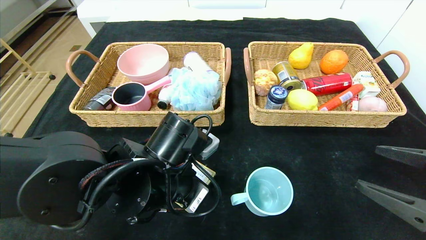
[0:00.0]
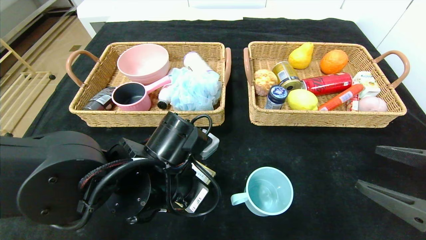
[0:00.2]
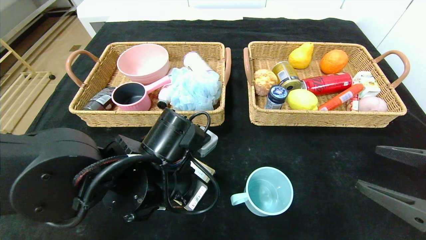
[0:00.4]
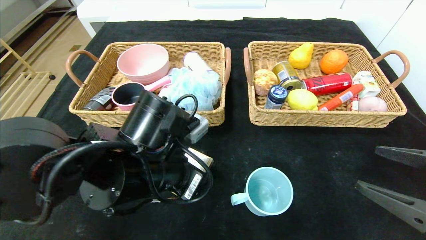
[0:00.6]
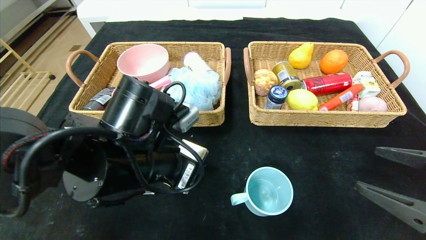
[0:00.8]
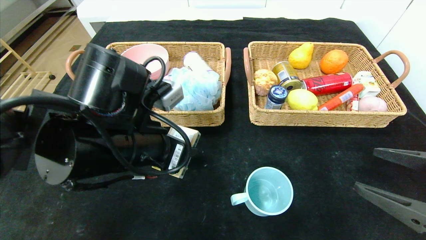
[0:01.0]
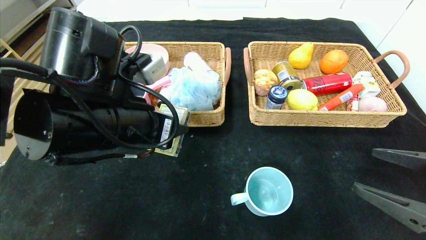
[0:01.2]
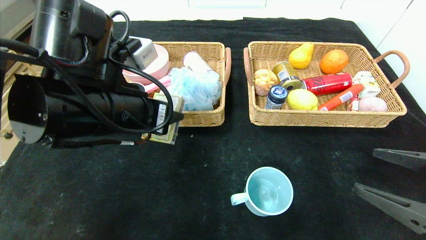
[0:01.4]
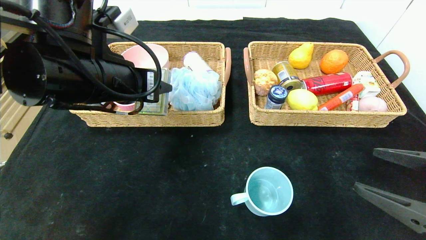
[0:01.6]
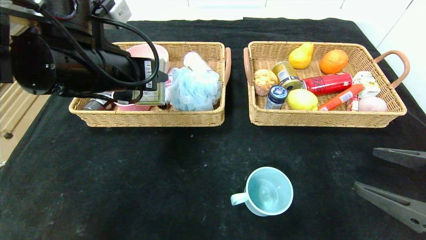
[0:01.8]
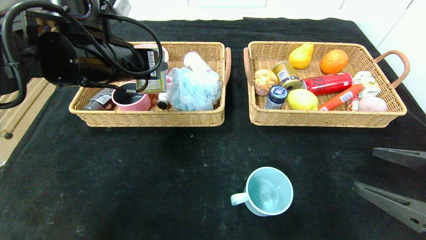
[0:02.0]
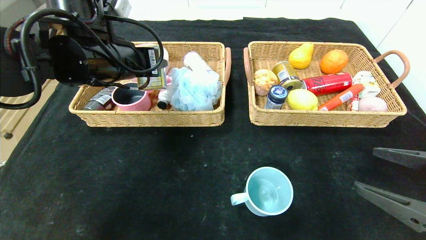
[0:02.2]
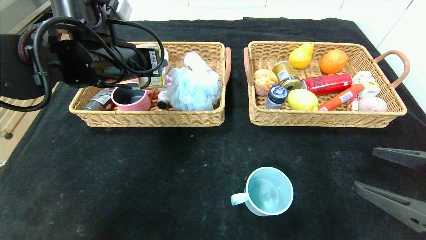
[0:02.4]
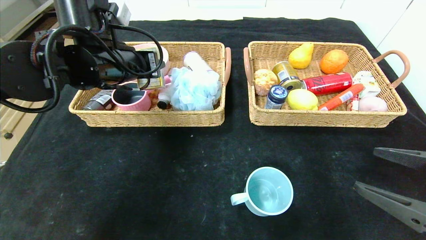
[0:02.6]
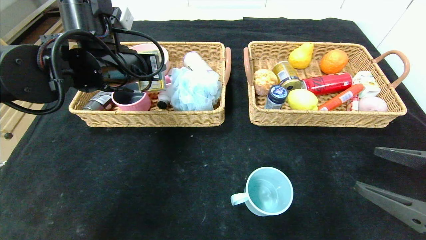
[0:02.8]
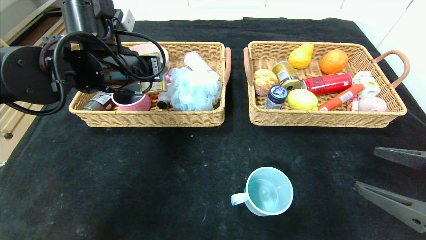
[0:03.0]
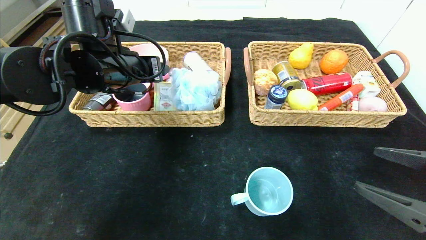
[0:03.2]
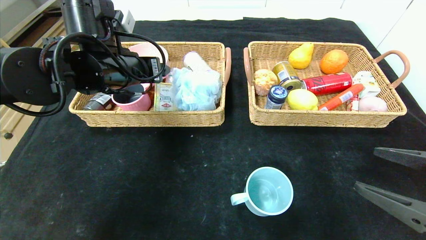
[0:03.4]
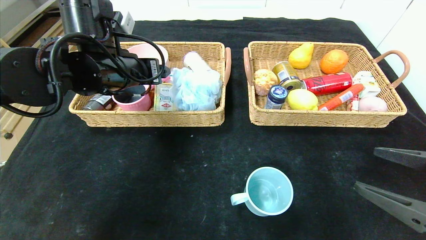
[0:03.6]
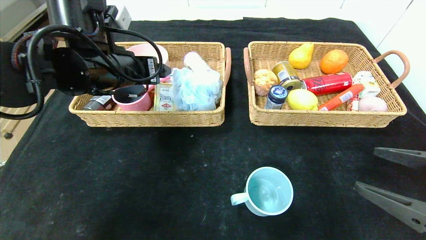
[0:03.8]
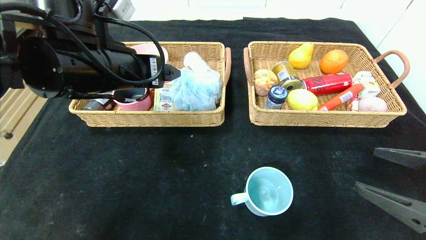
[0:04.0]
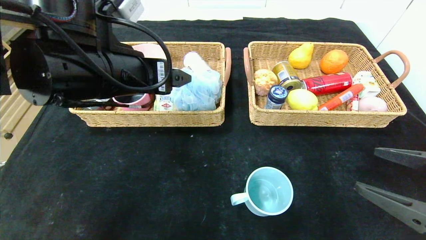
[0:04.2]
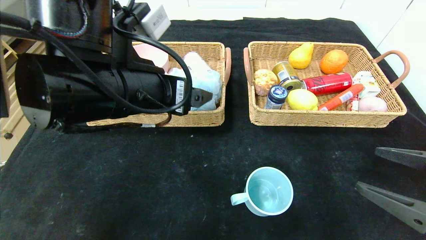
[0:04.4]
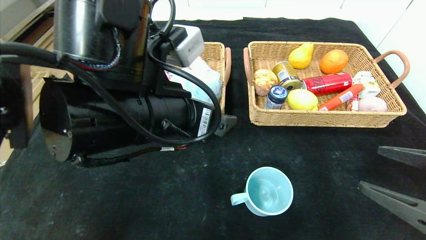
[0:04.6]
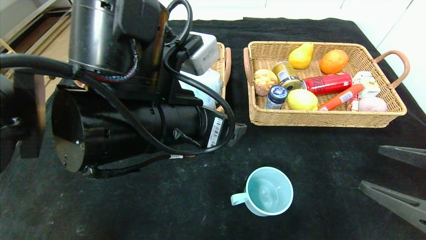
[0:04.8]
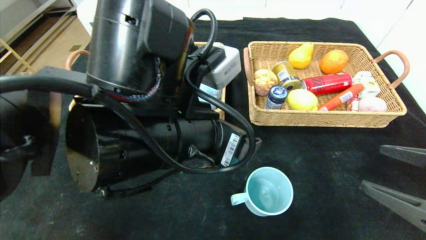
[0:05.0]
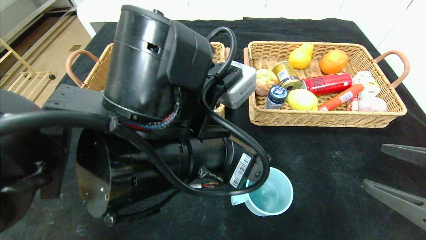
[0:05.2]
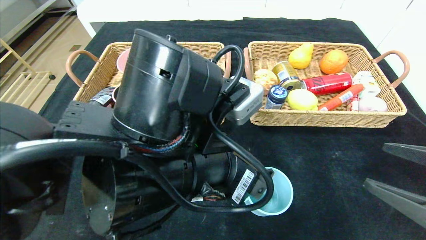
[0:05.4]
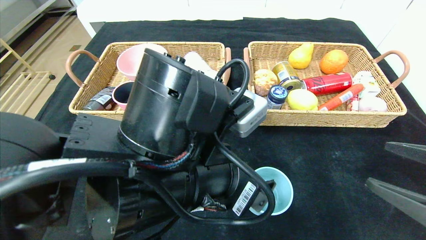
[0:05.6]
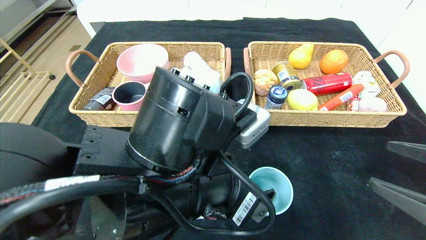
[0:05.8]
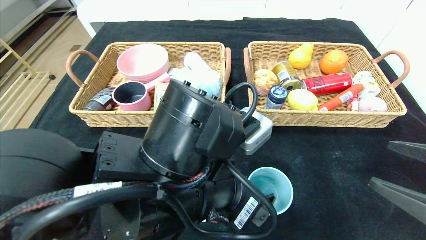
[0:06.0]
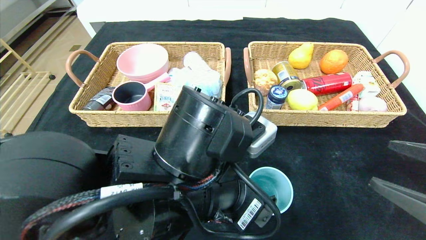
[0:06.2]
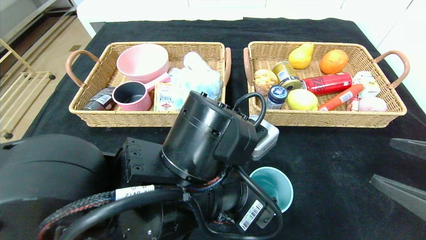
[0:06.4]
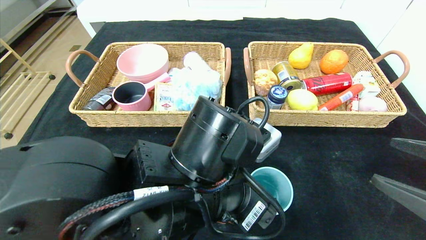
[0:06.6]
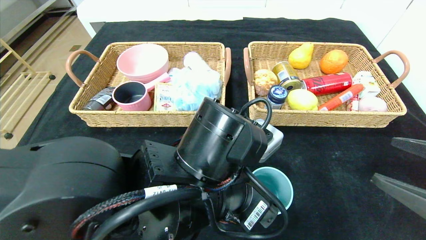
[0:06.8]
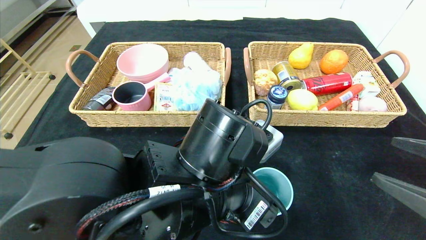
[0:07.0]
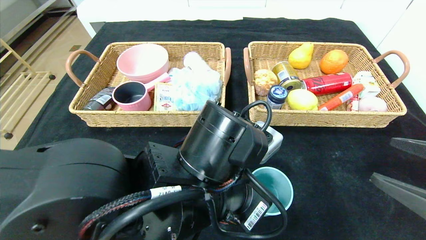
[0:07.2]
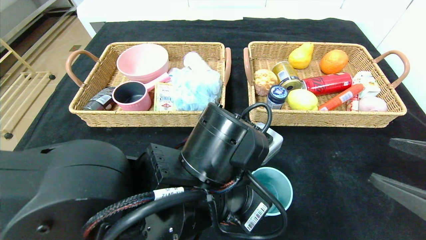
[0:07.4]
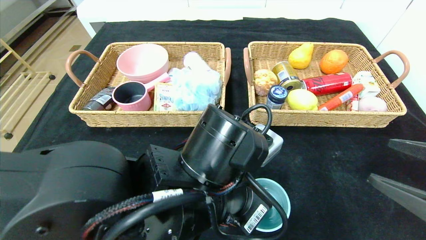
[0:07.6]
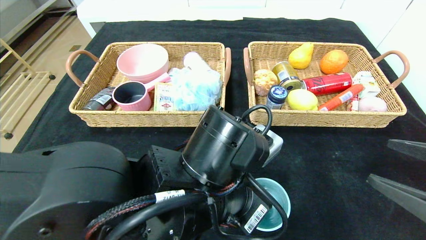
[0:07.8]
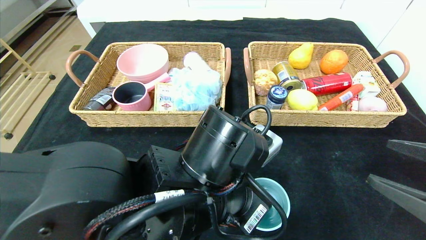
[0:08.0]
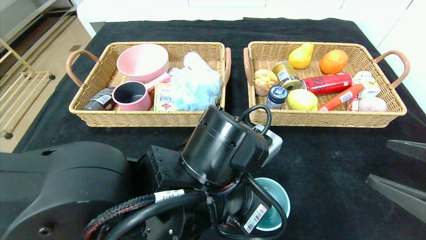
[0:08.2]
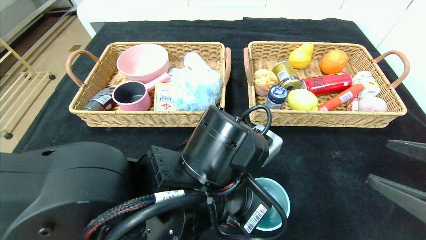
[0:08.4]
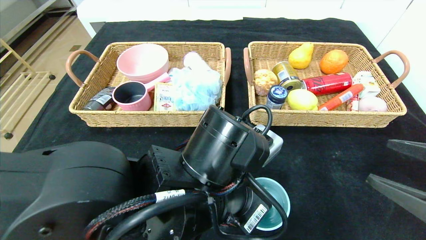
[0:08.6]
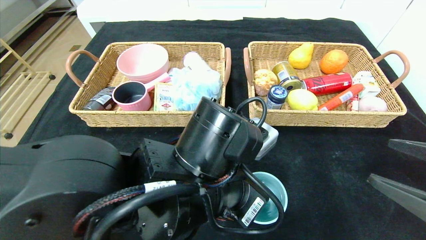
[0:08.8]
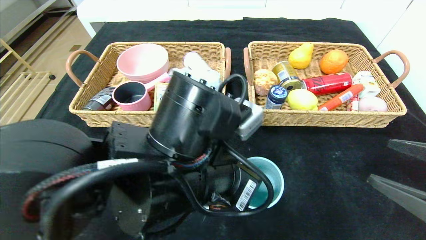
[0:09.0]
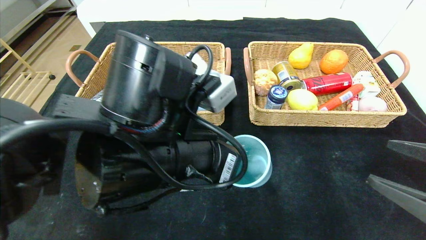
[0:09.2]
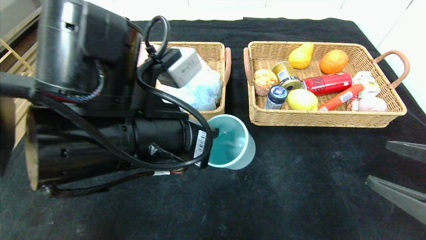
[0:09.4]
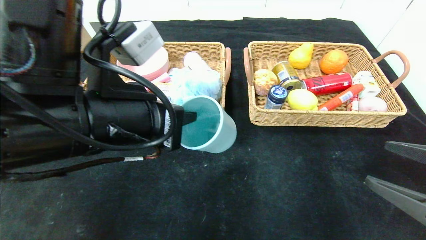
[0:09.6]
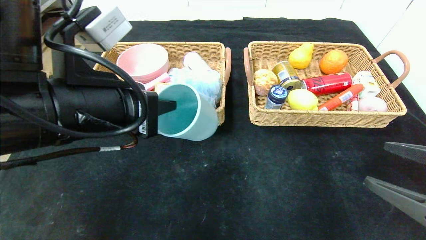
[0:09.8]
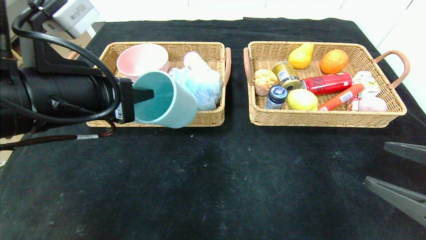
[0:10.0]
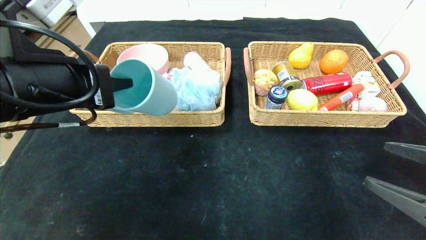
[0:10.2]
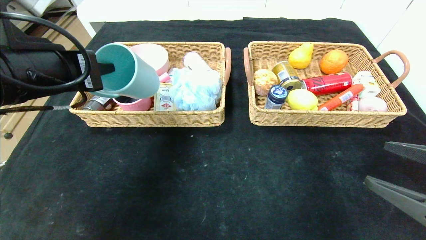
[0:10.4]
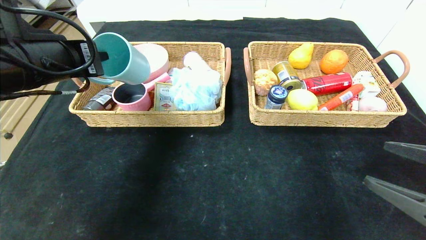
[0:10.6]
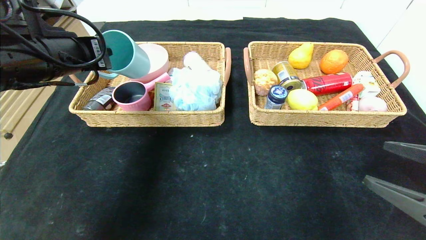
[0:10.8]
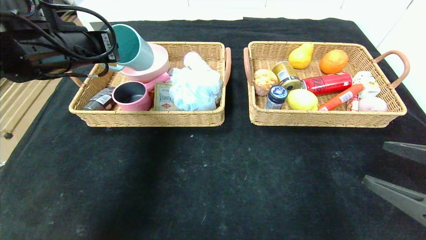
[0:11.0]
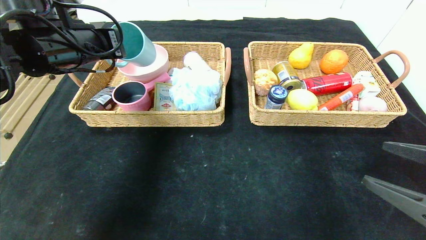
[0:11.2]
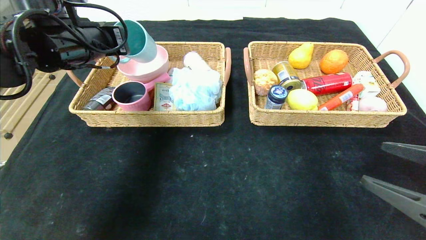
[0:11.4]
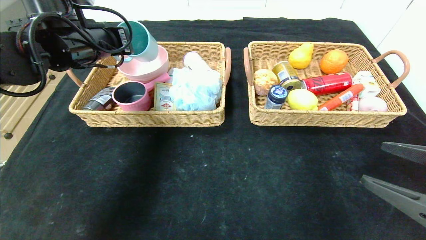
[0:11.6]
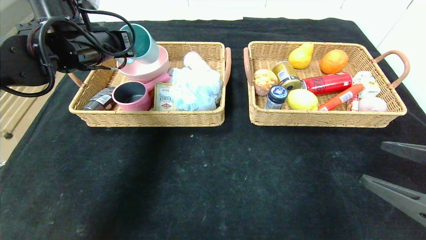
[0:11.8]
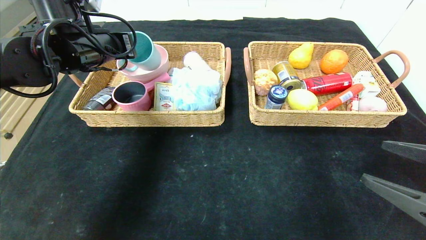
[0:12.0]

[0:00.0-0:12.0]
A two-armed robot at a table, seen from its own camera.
Step, 0:00.0 to 0:04.4: Pick up the playing cards and put it in the left basket.
0:00.0 to 0:01.6: The left gripper moves upward and to the left, roughly 15 cm.
0:01.6 to 0:03.0: The left gripper shifts roughly 10 cm forward.
0:03.0 to 0:04.4: The left gripper is displaced backward and to the right by about 15 cm.
0:04.4 to 0:06.0: The left gripper travels downward, to the right and backward by approximately 10 cm.
0:06.0 to 0:07.6: The left gripper closes.
0:09.0 to 0:10.4: The left gripper shifts roughly 20 cm to the left and upward.
0:10.4 to 0:12.0: The left gripper is displaced forward by approximately 15 cm.

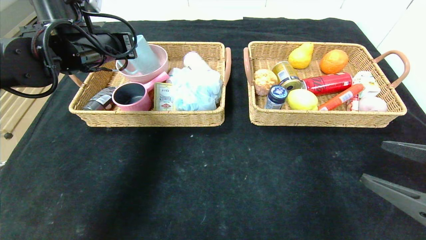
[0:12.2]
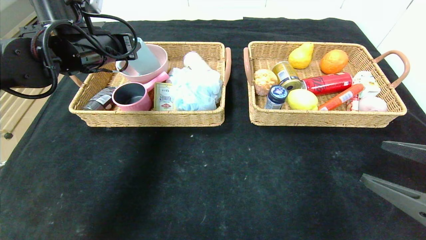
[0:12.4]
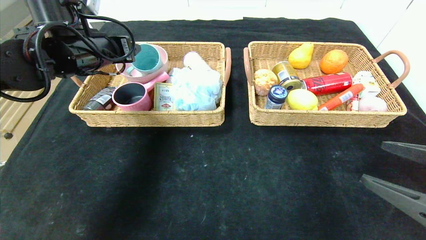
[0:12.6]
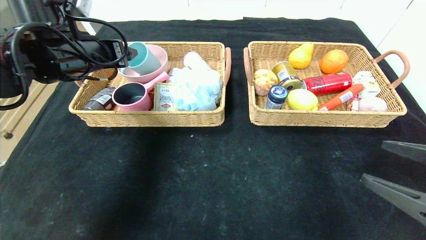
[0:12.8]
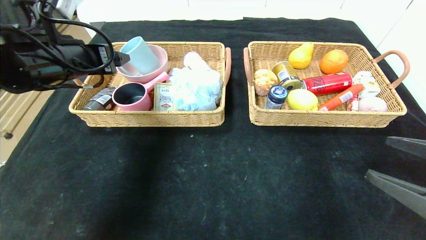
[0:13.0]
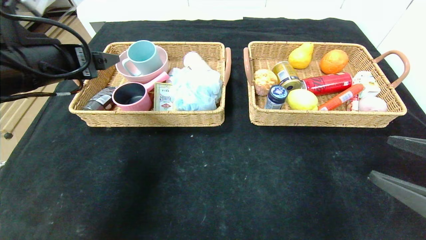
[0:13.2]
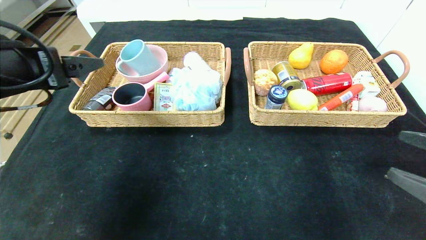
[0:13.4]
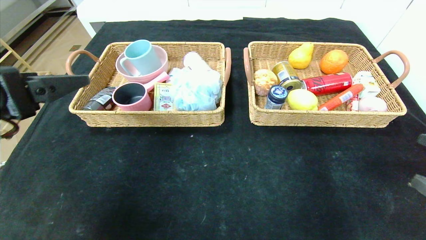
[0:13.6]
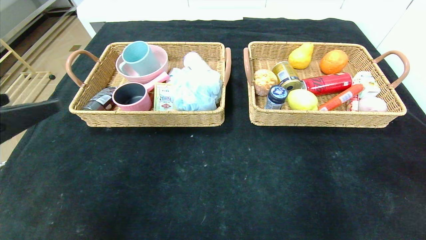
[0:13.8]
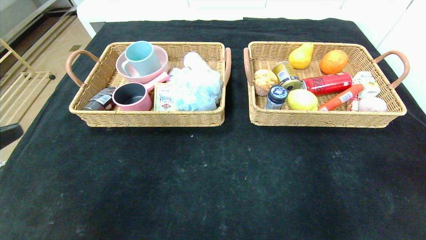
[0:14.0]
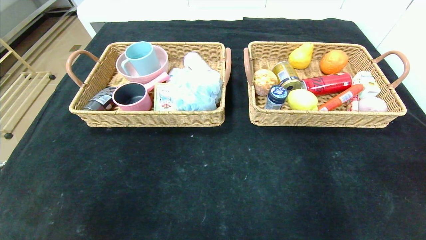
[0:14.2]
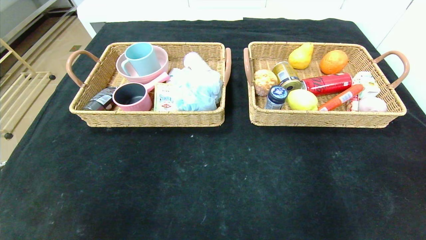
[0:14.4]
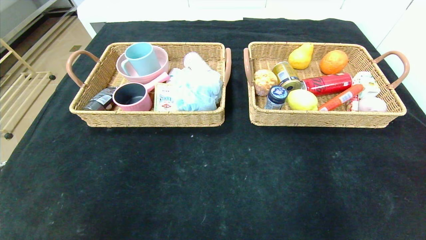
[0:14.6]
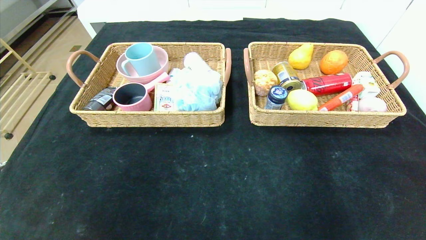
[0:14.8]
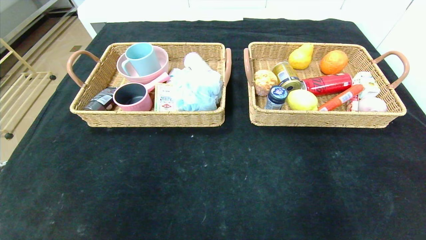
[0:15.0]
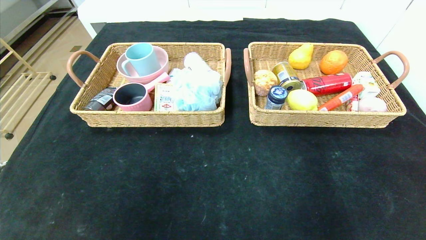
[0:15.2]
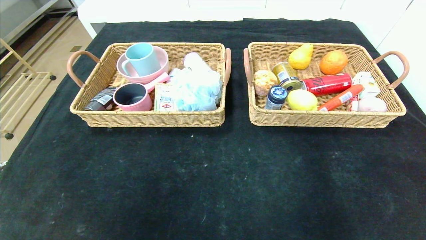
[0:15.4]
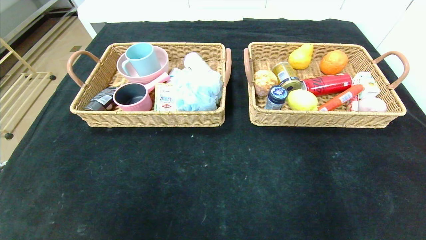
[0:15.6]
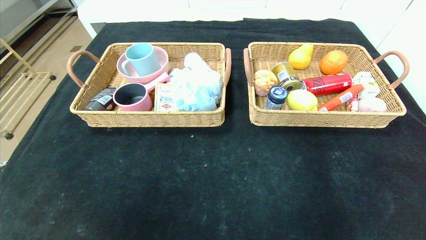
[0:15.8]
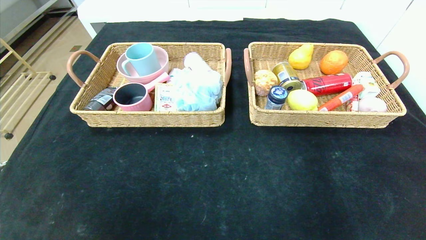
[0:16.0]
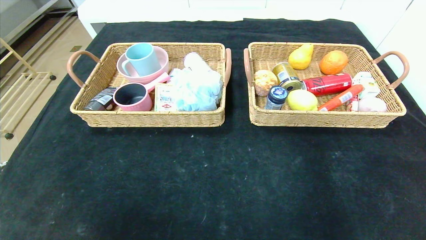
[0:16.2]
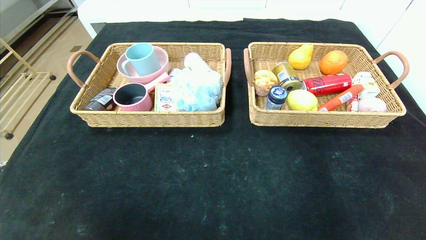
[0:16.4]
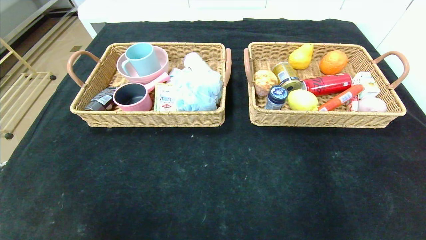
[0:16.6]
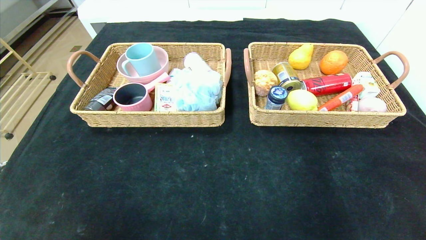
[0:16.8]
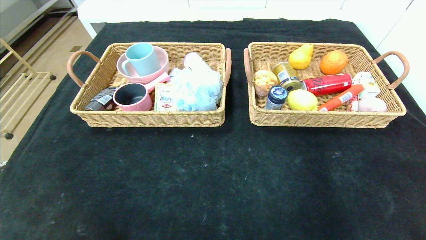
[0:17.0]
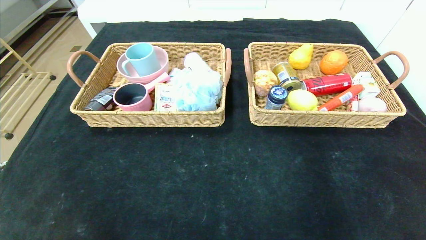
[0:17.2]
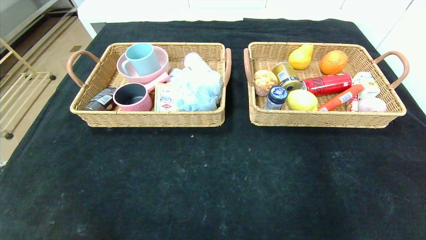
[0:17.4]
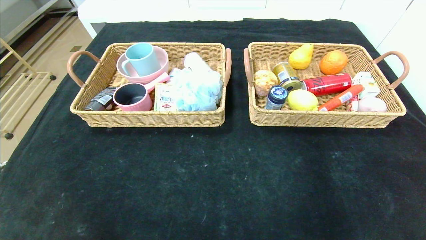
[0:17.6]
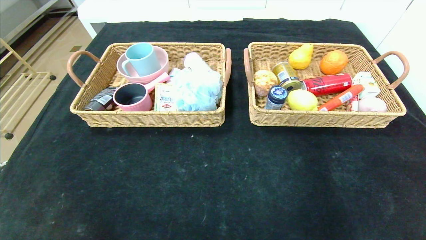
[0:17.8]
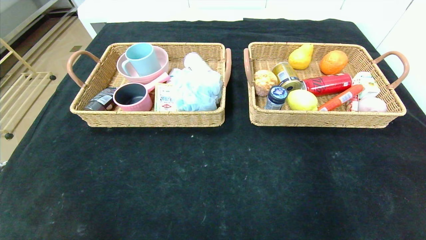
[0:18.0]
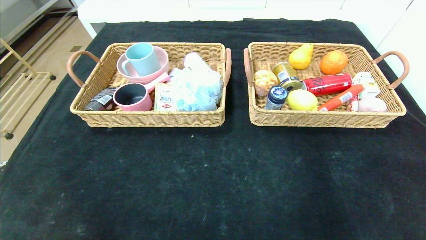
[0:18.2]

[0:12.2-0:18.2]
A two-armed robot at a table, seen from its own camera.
0:12.2 to 0:13.8: The left gripper travels backward by approximately 30 cm, and opens. The right gripper travels backward by roughly 5 cm.
0:13.8 to 0:15.2: The two grippers go roughly 15 cm backward.
